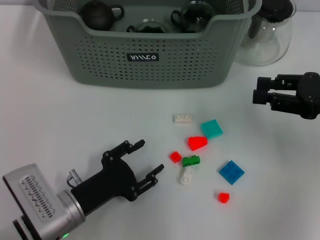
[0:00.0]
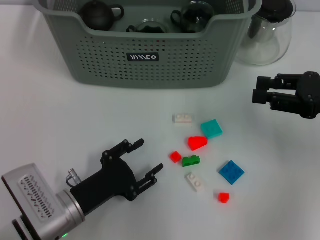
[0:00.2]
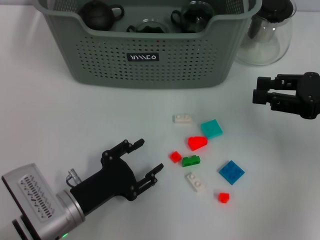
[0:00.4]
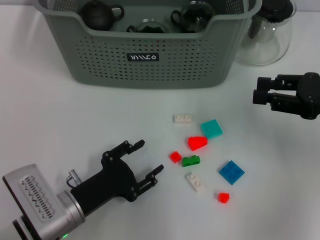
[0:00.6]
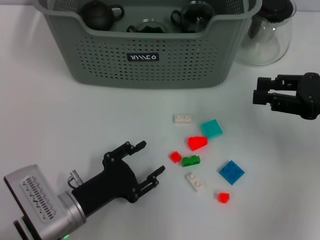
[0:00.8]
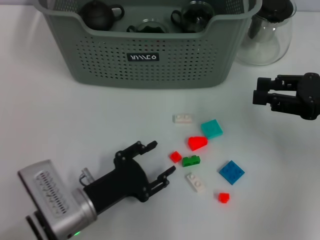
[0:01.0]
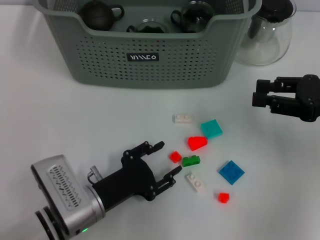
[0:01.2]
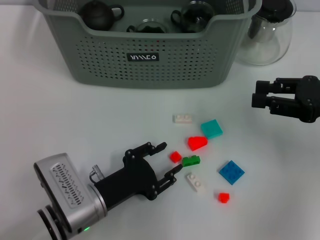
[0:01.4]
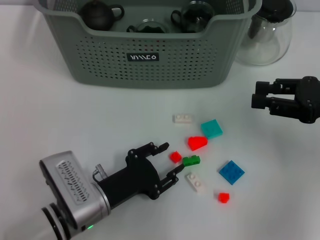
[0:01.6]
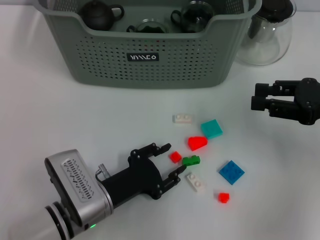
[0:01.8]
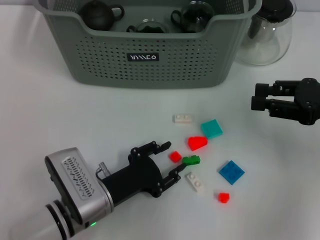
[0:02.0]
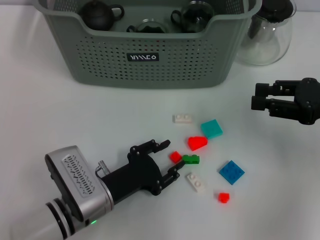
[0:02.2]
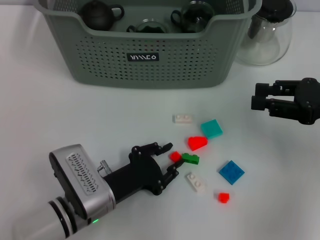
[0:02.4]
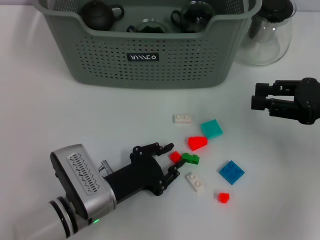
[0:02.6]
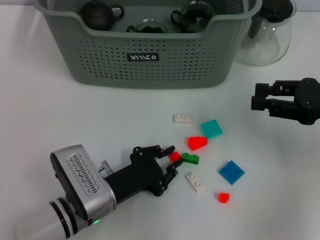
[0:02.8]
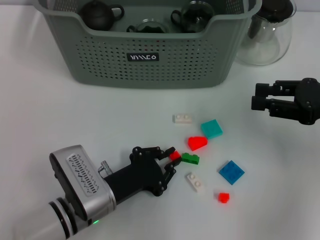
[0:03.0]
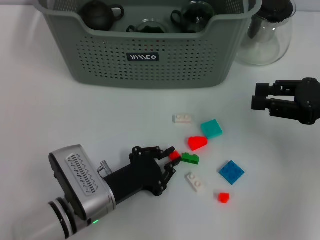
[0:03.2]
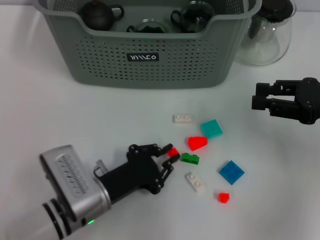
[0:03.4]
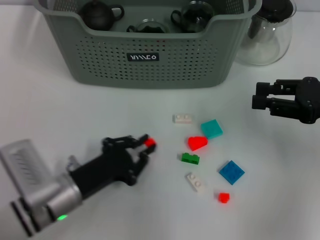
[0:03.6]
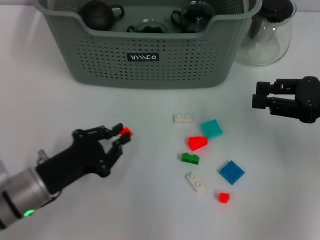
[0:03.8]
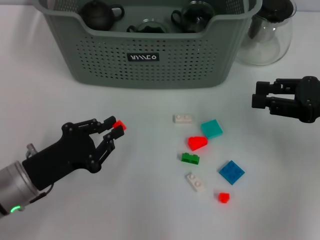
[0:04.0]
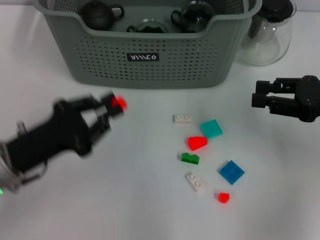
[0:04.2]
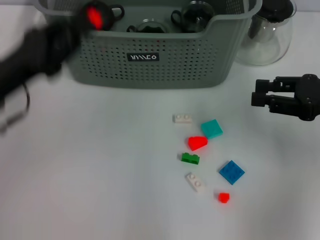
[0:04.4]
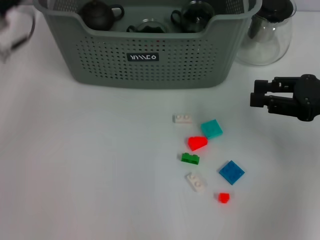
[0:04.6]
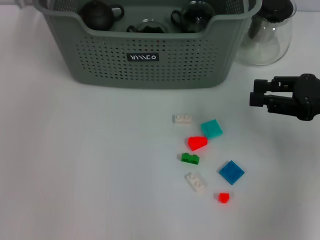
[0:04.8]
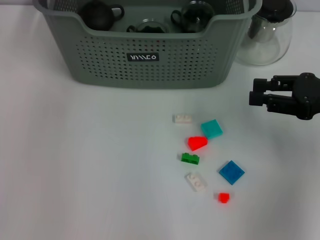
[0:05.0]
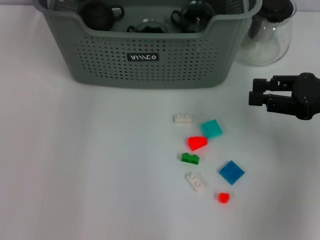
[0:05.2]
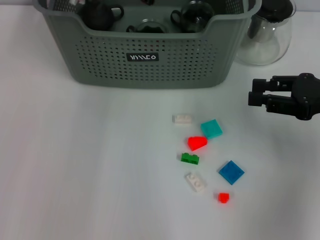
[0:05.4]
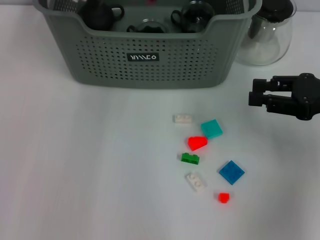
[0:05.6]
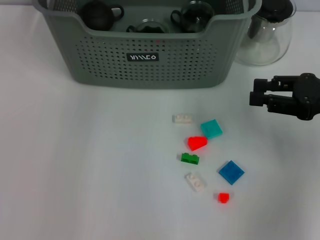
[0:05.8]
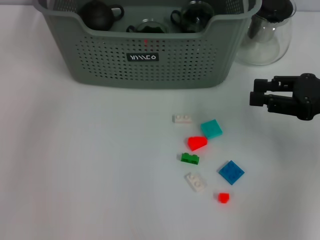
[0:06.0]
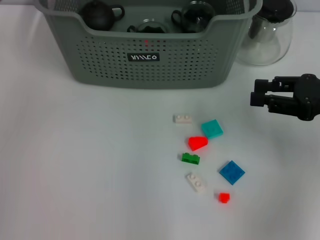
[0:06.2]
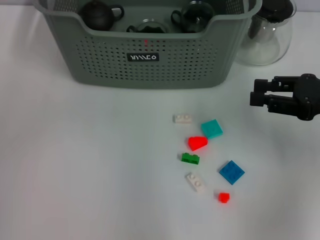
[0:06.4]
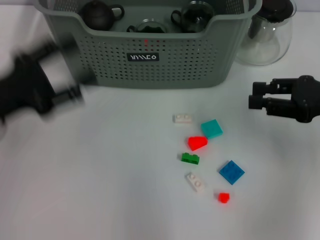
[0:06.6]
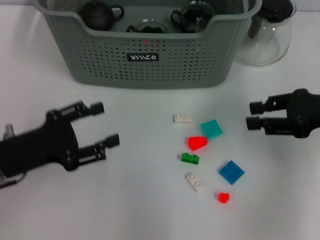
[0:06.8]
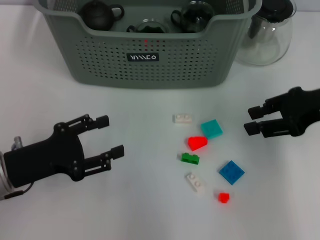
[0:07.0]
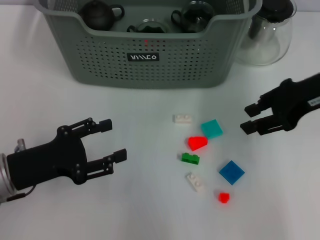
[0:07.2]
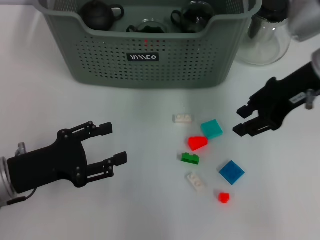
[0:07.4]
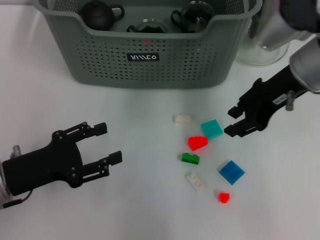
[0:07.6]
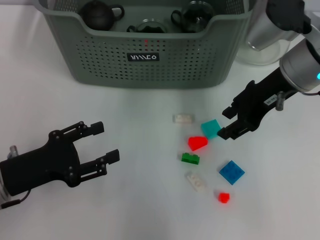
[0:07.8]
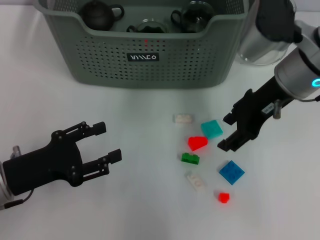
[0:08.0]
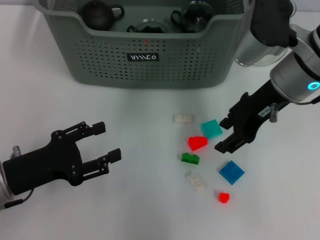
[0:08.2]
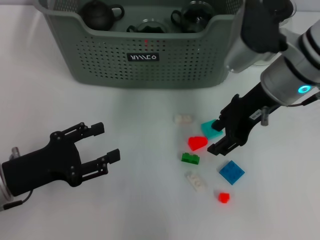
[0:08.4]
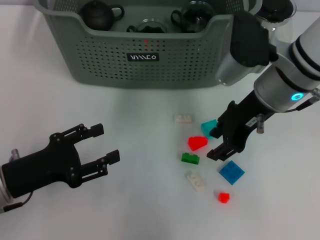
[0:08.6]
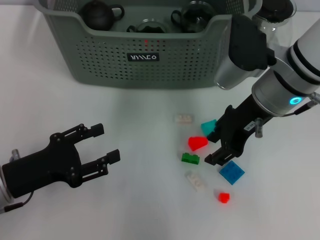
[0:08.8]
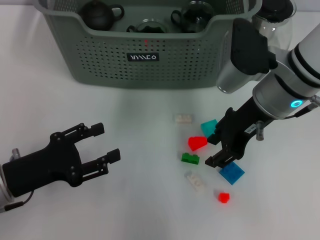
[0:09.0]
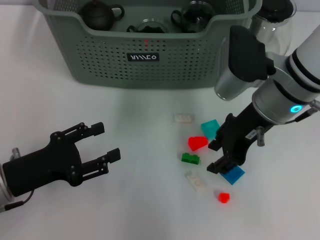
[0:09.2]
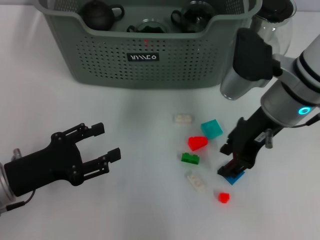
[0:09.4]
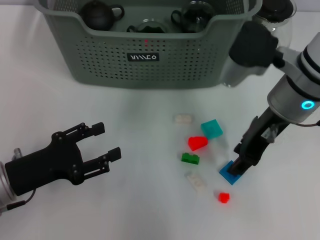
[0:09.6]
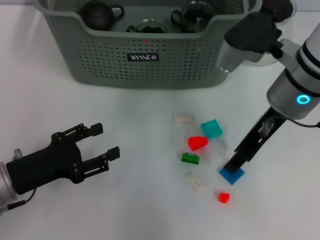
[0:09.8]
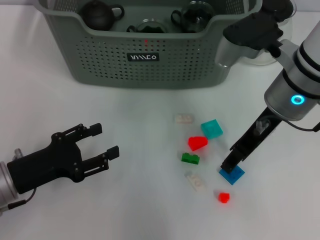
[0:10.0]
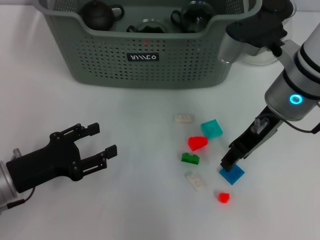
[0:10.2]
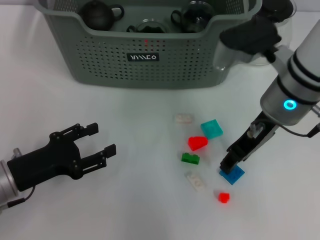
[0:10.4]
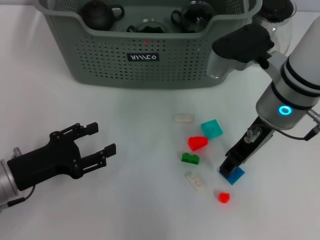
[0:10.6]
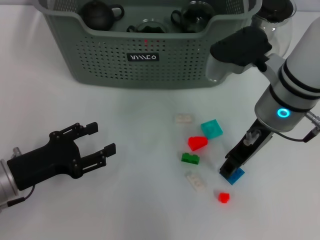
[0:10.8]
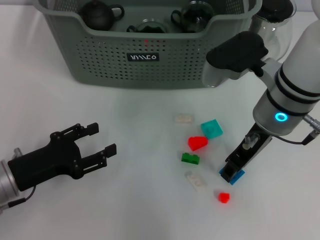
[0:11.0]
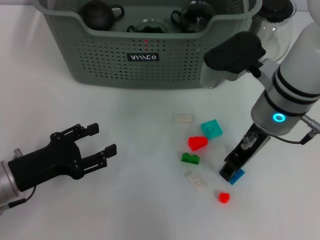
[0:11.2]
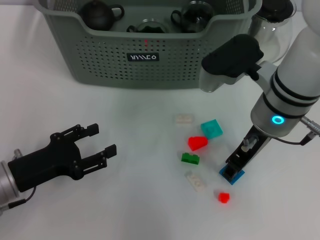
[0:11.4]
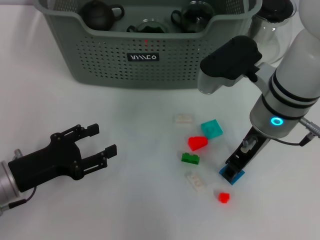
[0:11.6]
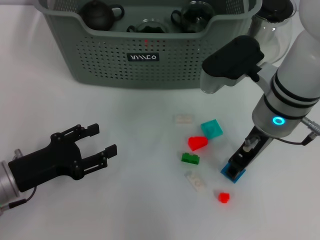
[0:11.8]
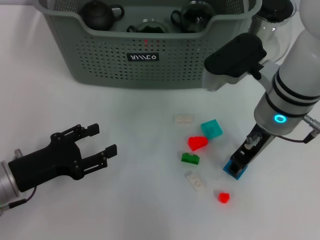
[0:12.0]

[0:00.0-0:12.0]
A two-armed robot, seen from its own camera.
Task of the whole recording: pick up the teacup on the table and place it into the storage bin, pick up the block on the table and place it into the storage bin.
Step, 0:00.0 to 0:03.0: Grasp the orange block with left gripper.
Step, 0:03.2 to 0:06.0: Place the orange block in the storage box with left gripper.
0:00.0 to 0:01.6: There are only small adjustments of the grippers.
0:01.6 to 0:03.0: The two grippers keep their place.
0:03.0 to 0:04.4: The left gripper heads upward, to the left and forward, covering roughly 20 cm.
0:04.4 to 0:06.0: The left gripper is displaced forward and upward by some 20 cm, and opens.
0:06.0 to 0:07.6: The left gripper shifts about 30 cm backward and downward. Meanwhile the right gripper goes about 15 cm to the left, forward and upward.
0:07.6 to 0:09.0: The right gripper moves some 5 cm.
0:10.4 to 0:12.0: The grippers stay close to where they were, moving slightly.

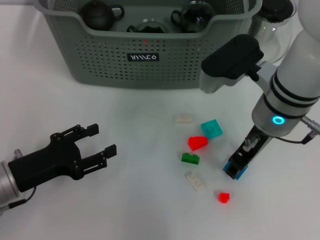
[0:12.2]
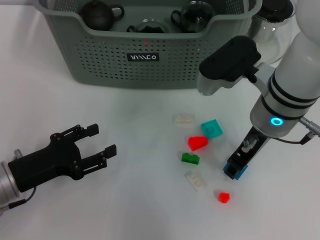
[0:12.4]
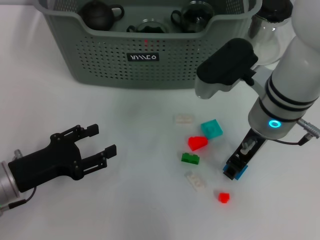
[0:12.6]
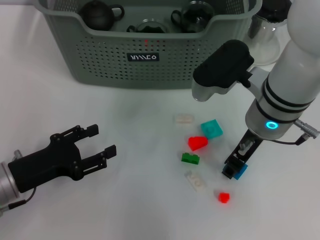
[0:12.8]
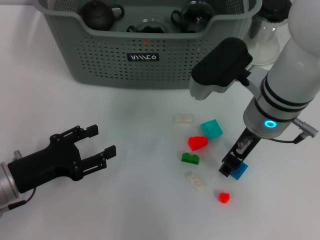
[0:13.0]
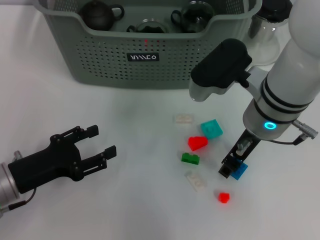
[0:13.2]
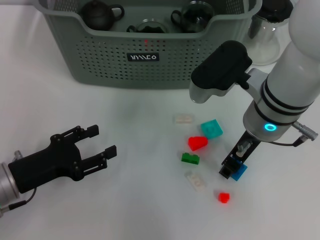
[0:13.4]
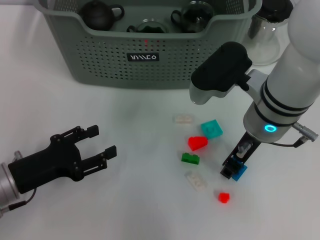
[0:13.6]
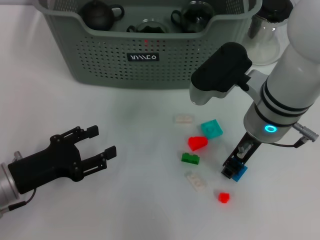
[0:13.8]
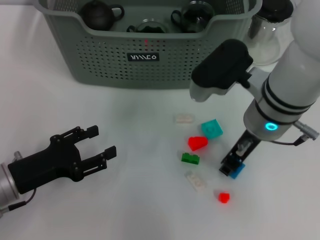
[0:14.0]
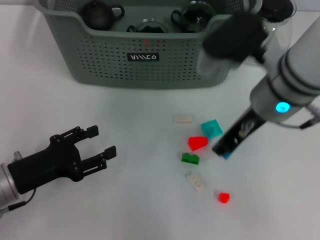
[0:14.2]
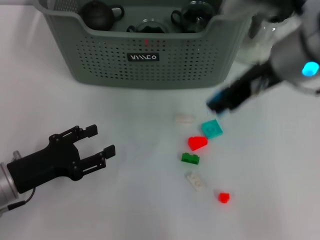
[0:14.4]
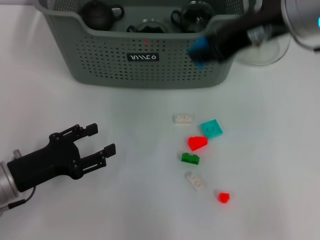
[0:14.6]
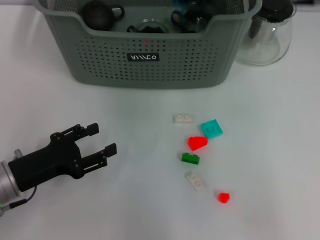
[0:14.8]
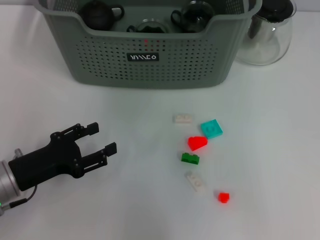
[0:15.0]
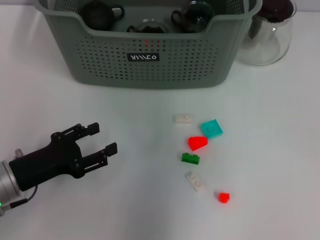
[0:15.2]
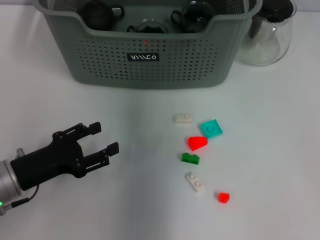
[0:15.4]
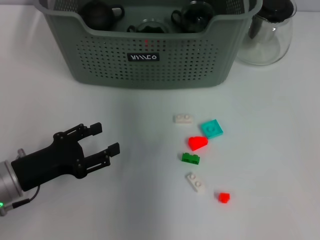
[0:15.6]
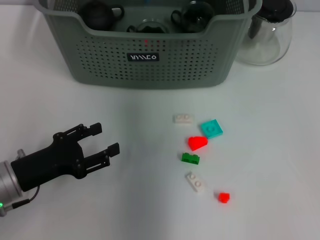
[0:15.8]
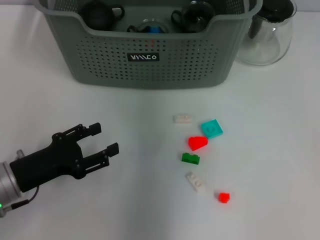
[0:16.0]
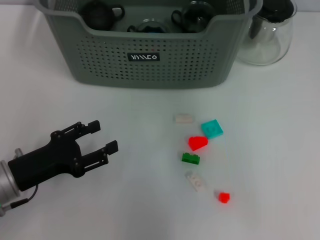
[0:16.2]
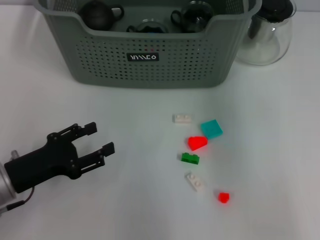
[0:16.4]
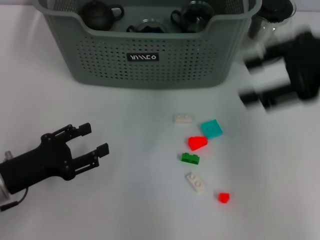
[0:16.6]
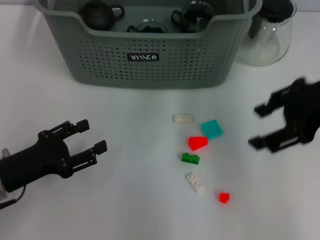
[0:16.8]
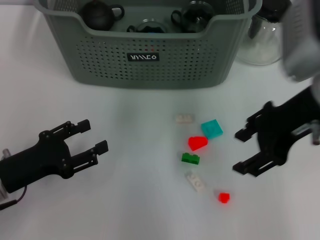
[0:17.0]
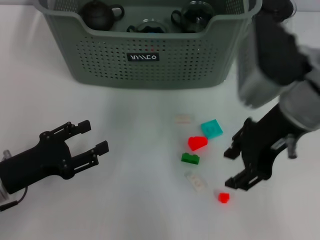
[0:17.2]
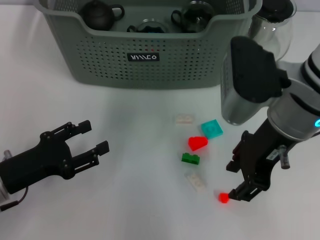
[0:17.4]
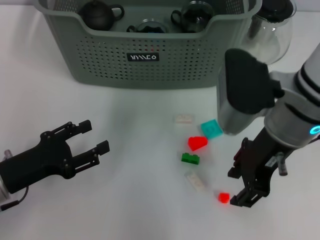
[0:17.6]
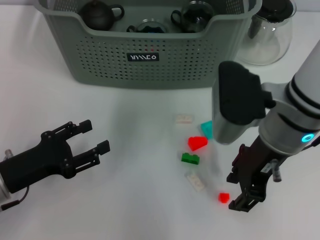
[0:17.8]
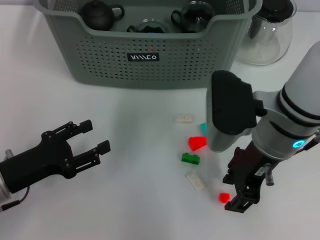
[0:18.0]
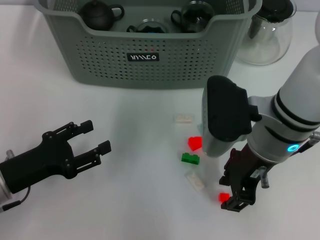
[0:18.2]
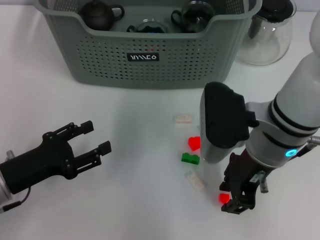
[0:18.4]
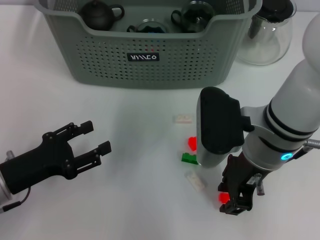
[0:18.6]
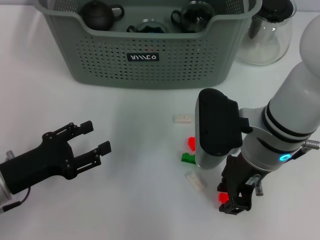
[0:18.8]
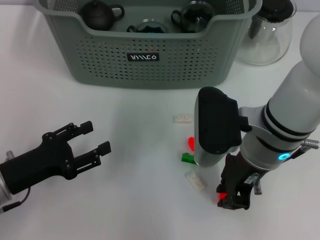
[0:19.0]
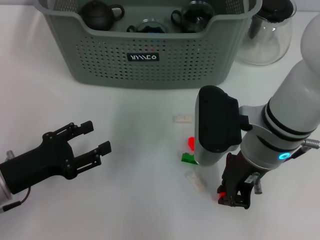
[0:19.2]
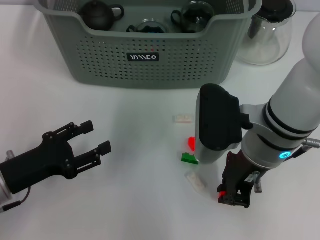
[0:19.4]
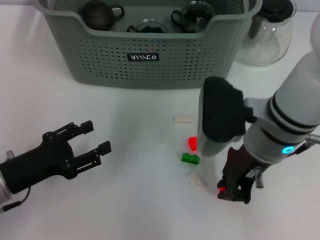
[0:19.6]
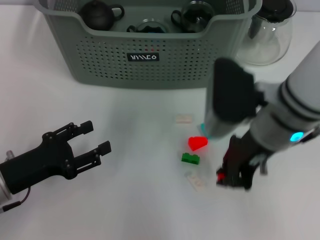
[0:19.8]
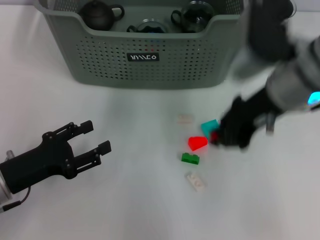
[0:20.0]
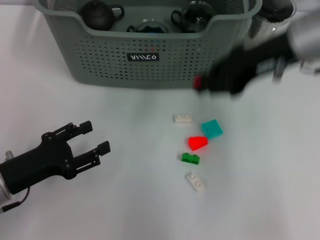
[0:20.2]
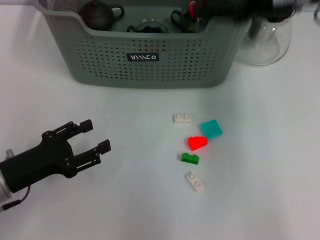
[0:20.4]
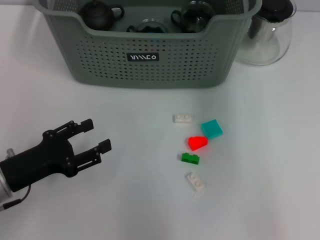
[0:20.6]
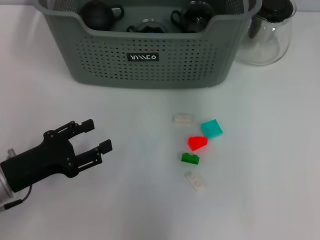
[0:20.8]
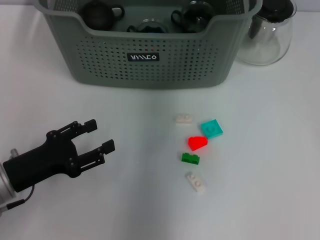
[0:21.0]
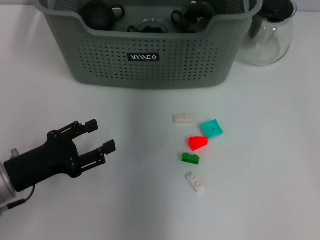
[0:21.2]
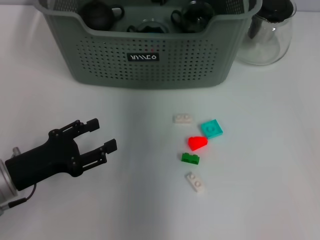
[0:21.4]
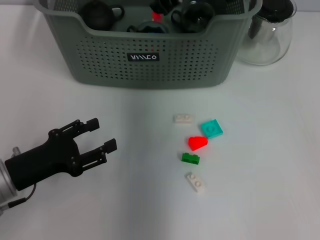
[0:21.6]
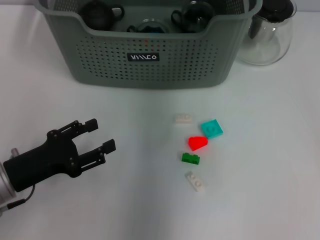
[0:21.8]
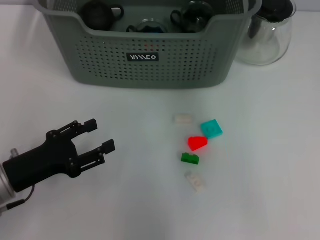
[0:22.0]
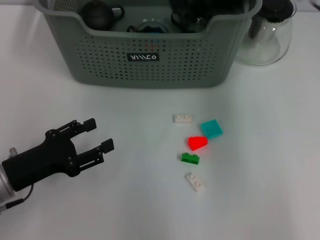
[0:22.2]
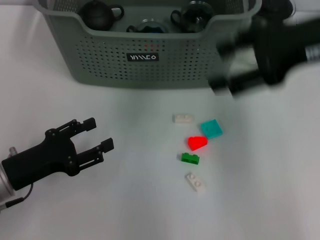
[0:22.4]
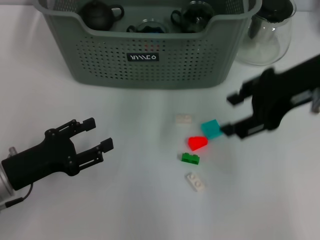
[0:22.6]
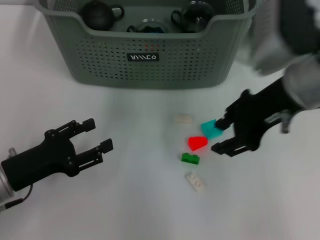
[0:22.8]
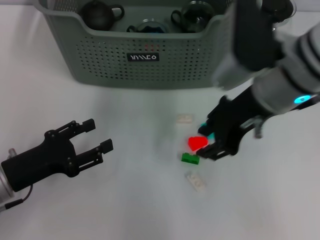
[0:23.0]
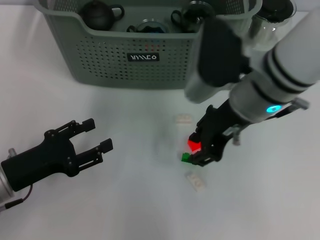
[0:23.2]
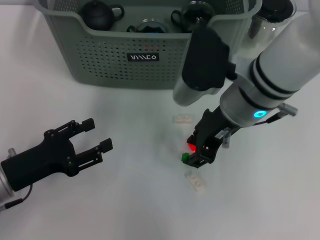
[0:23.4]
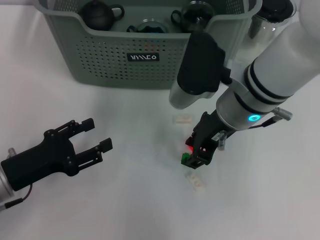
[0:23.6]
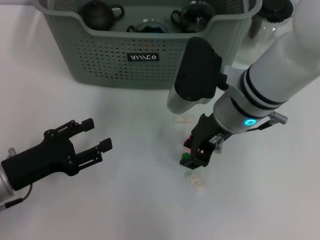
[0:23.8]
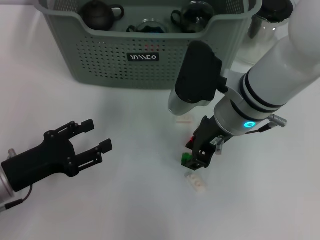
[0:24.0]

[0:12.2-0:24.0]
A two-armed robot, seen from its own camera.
Task of the whole recording: pick up the teacup on the table and place it into the storage bin, pick up the block on the table and place it into the storage bin.
Step, 0:13.8 to 0:16.0: Place the dark blue block in the storage box with right gripper.
Step, 0:16.4 to 0:19.0: Grasp the orange block with right gripper.
Step, 0:19.4 to 0:22.0: Place the orange block in the storage box with right gripper.
0:12.2 to 0:13.6: The grippers make only small movements.
0:13.6 to 0:15.2: The right gripper travels upward and forward by roughly 20 cm.
0:15.2 to 0:16.6: The right gripper moves to the right and backward, roughly 20 cm, and opens up.
0:16.6 to 0:18.2: The right gripper goes roughly 20 cm downward and to the left.
0:18.2 to 0:19.6: The right gripper closes.
0:19.6 to 0:21.0: The right gripper goes some 20 cm forward and upward.
0:21.0 to 0:22.6: The right gripper heads backward and to the right, covering about 20 cm, and opens its fingers.
0:22.6 to 0:24.0: The right gripper shifts some 15 cm to the left and downward, and closes.
